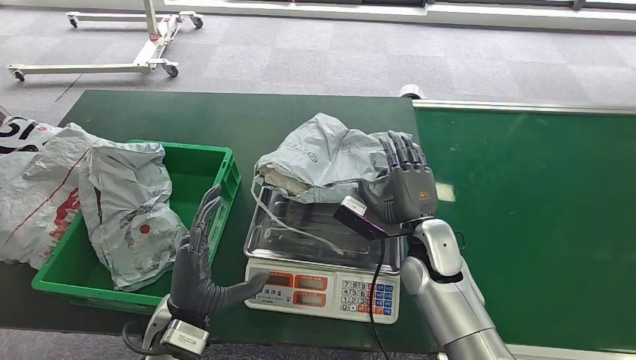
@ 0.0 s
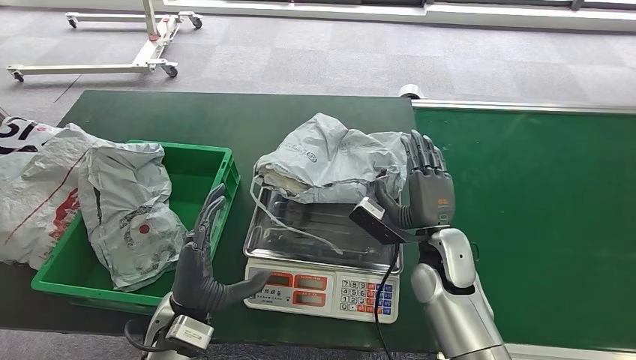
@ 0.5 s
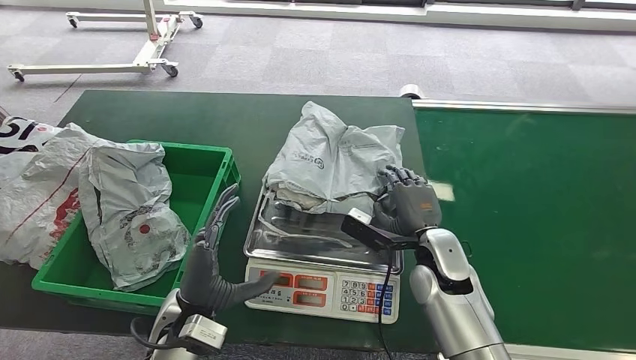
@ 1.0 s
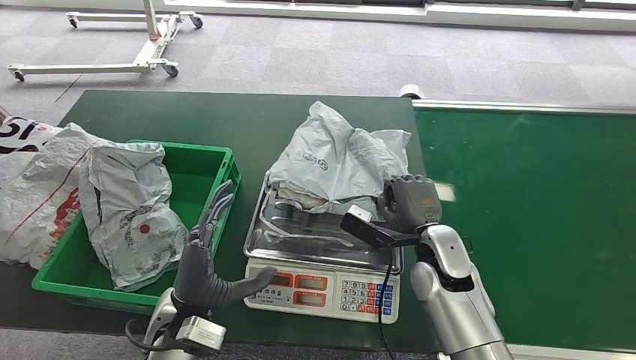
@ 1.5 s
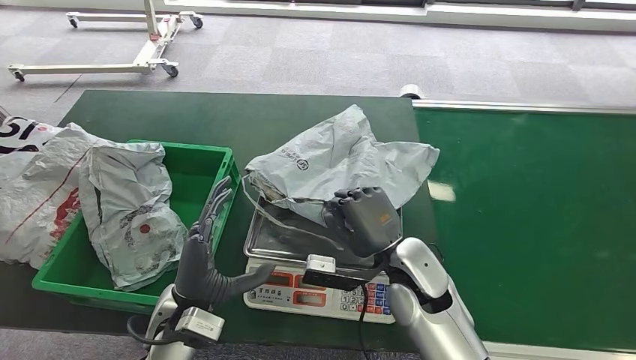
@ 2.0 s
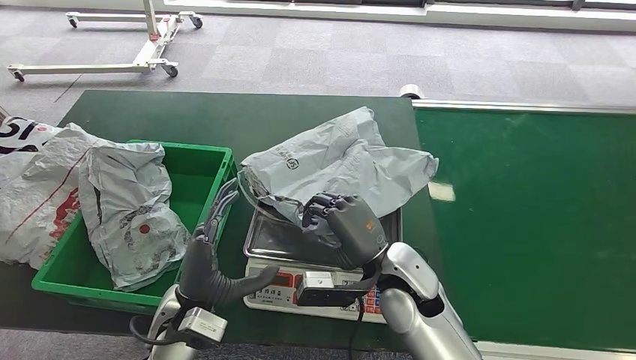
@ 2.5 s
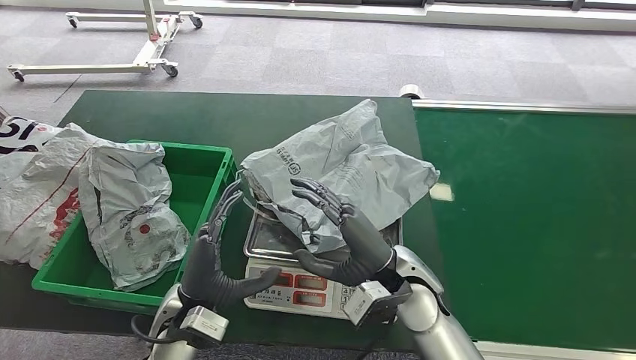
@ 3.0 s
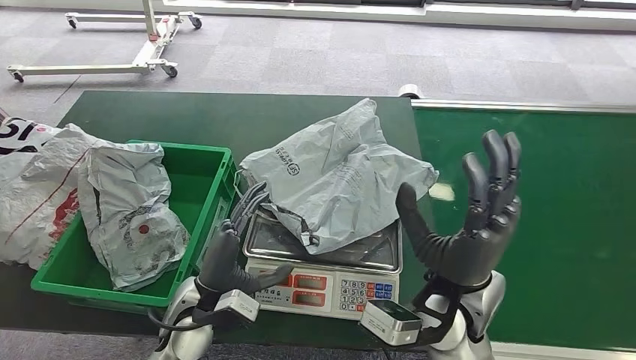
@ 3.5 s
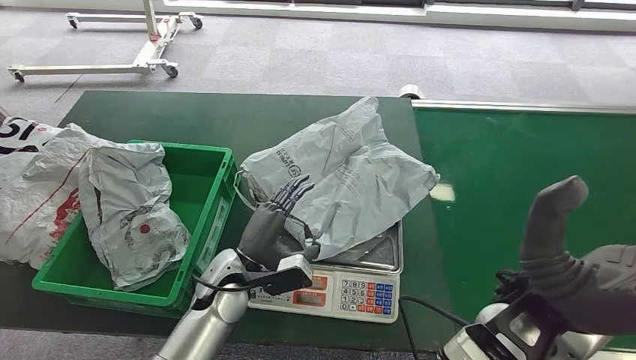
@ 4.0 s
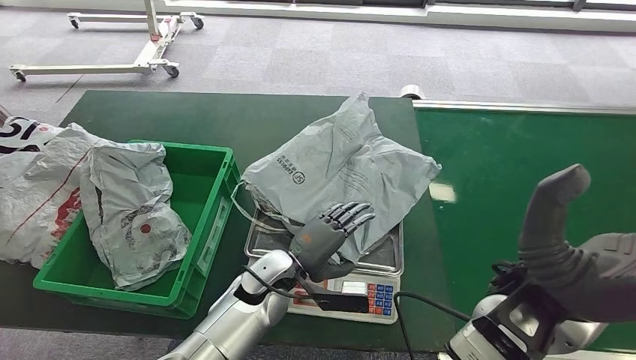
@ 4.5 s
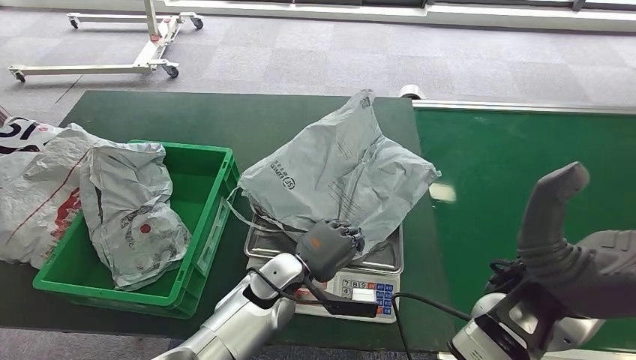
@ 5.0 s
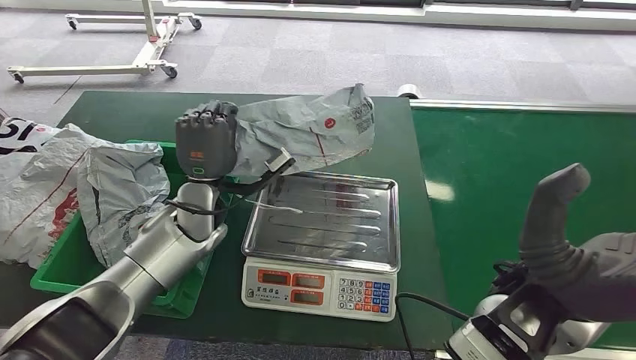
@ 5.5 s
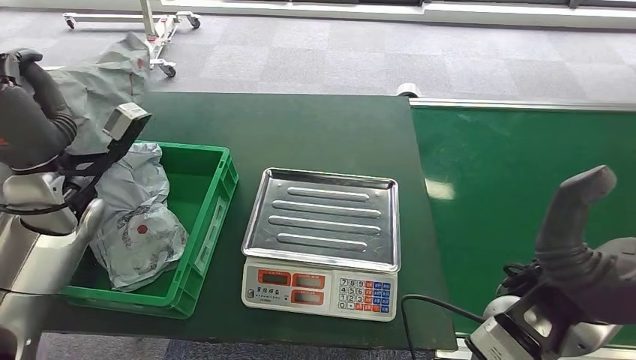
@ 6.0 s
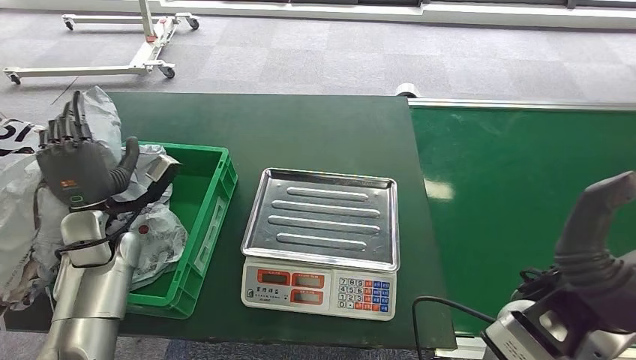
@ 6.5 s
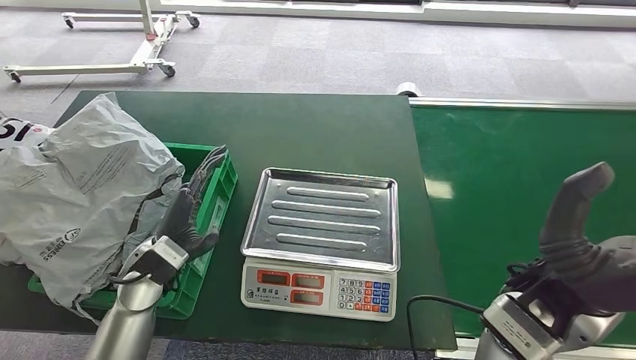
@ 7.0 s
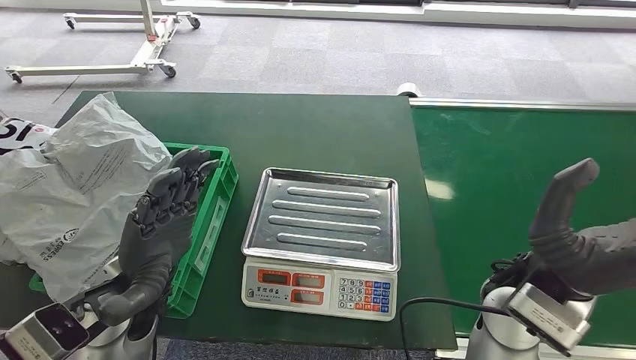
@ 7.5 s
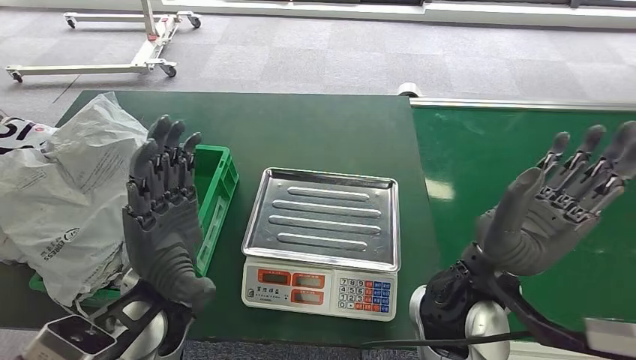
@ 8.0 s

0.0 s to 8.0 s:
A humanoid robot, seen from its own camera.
Step, 0.0 to 2.5 s: Place the package onto the inbound machine.
Step, 4.0 to 5.0 s: Pick up the package from the inbound machine.
Step, 6.0 to 8.0 s: Place the package into the parcel locker.
0.0 to 2.0 s: The right hand ends up roughly 5 cm from where it was.
2.0 to 4.0 s: The left hand shifts roughly 5 cm forward. The right hand goes approximately 20 cm upward, backward and to the right.
